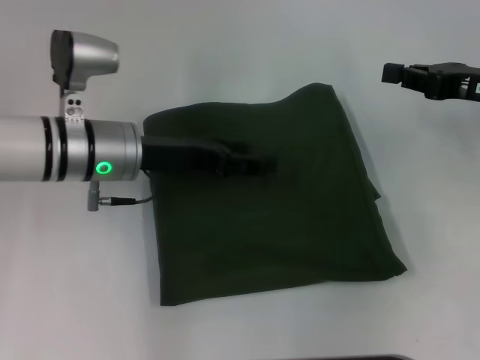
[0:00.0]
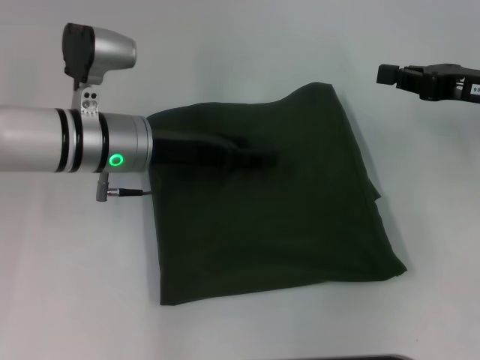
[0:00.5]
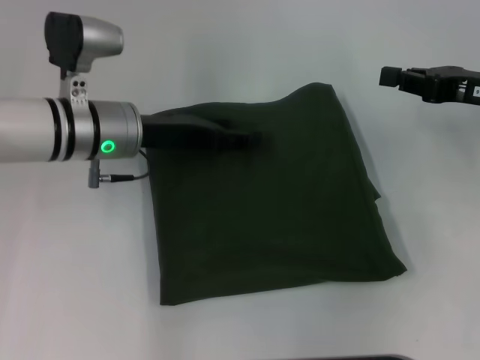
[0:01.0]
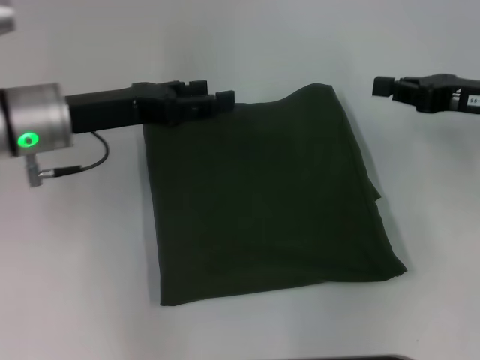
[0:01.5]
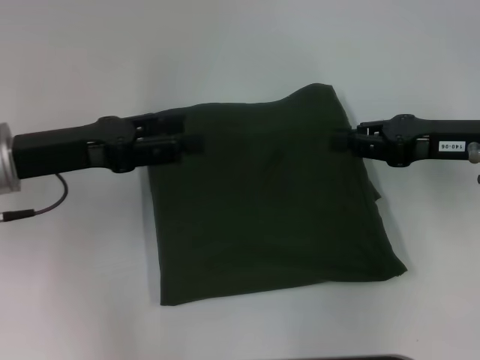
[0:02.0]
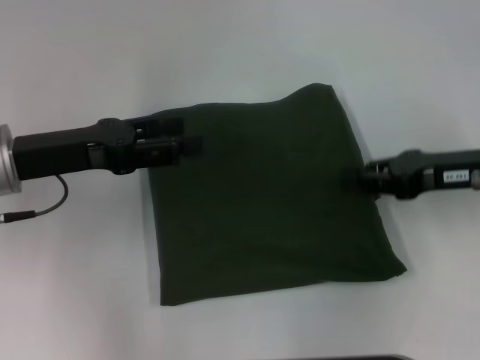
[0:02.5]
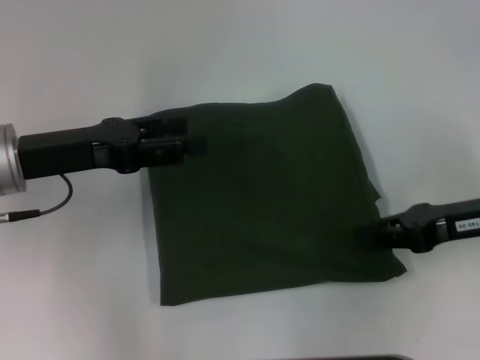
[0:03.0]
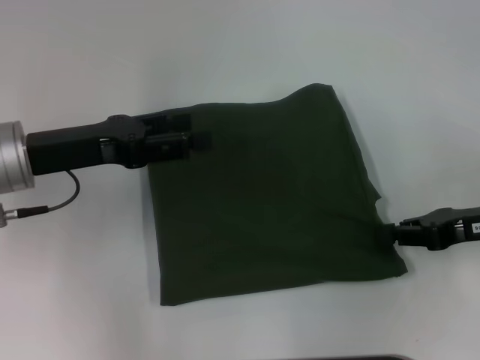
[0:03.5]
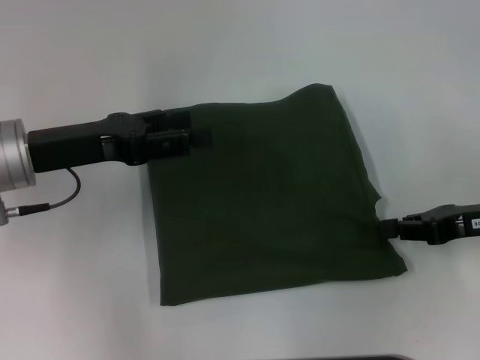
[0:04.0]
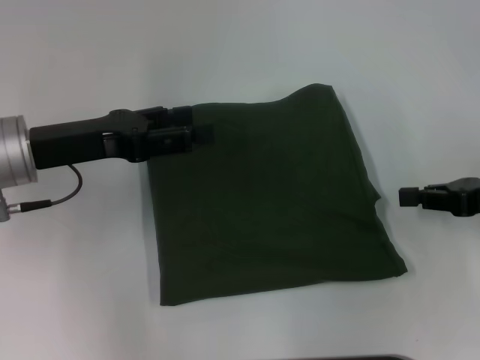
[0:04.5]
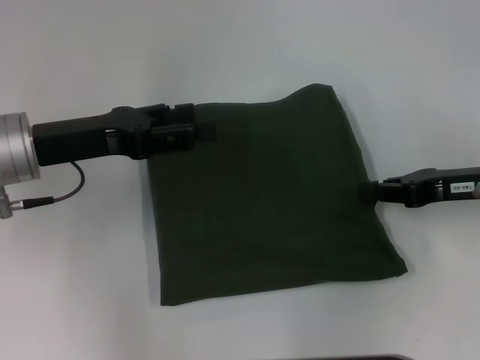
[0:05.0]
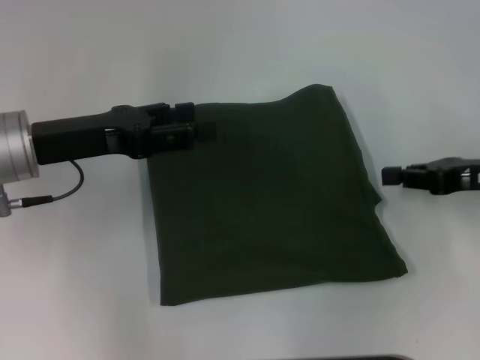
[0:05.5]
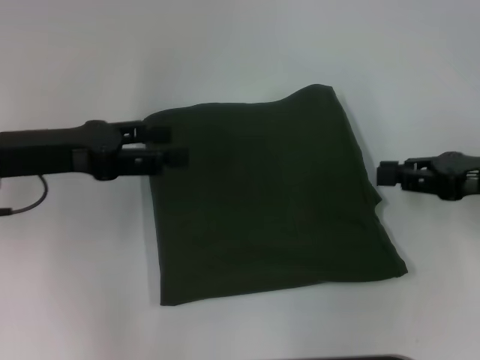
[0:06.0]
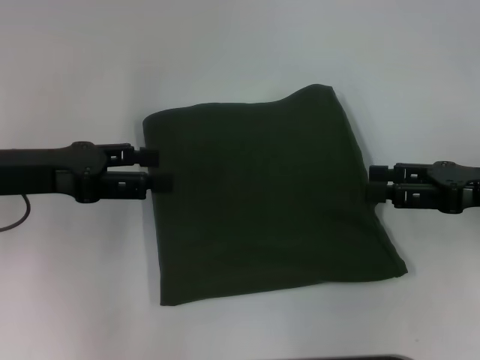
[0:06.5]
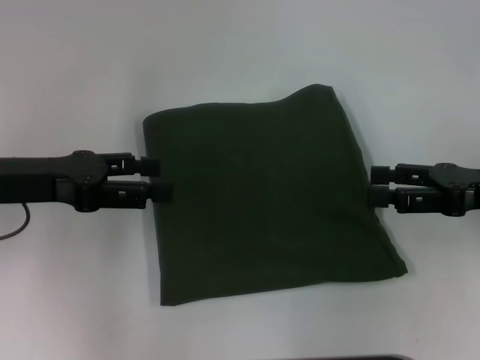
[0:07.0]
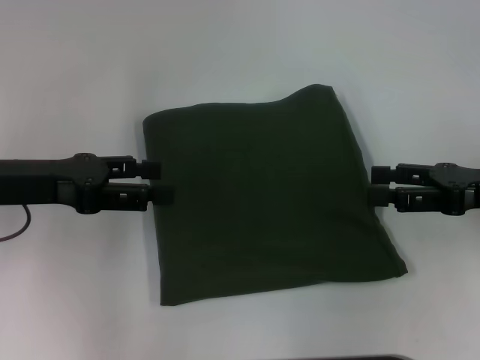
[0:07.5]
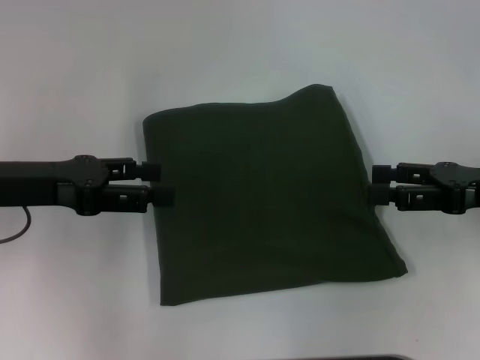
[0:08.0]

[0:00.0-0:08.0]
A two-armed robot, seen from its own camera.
0:00.0 to 0:02.0: The left gripper heads to the left, covering some 10 cm.
0:02.0 to 0:04.0: The right gripper ends up roughly 5 cm from where it was.
0:04.0 to 0:06.0: The grippers make only small movements.
0:06.0 to 0:08.0: The right gripper opens up.

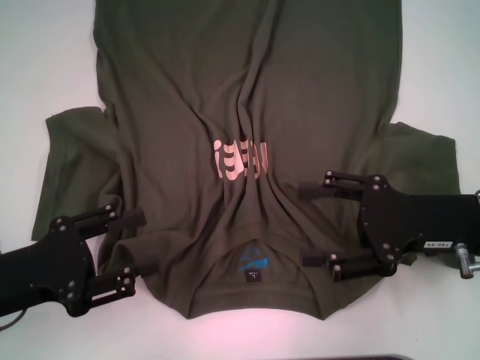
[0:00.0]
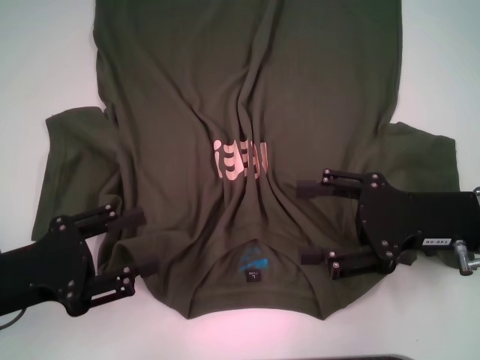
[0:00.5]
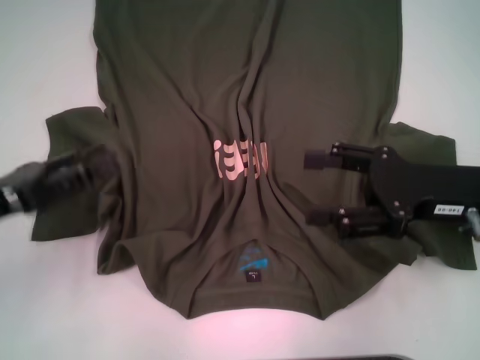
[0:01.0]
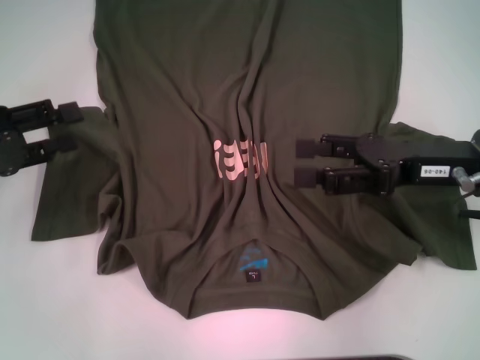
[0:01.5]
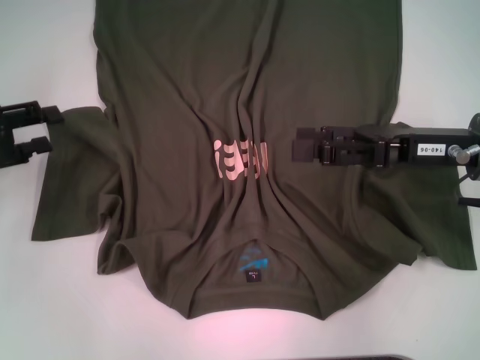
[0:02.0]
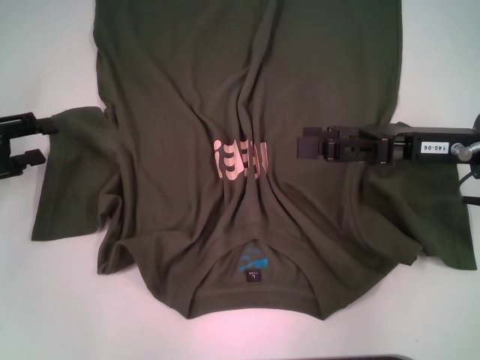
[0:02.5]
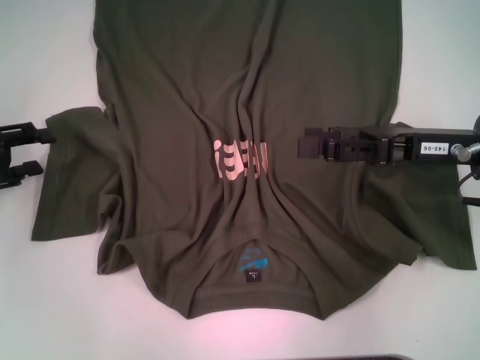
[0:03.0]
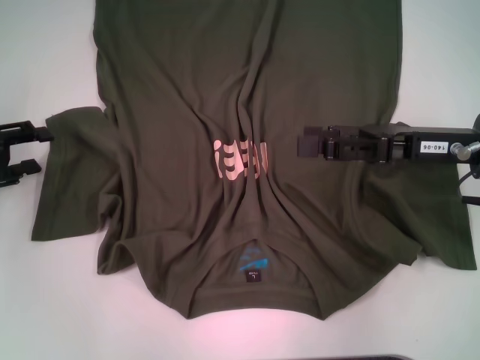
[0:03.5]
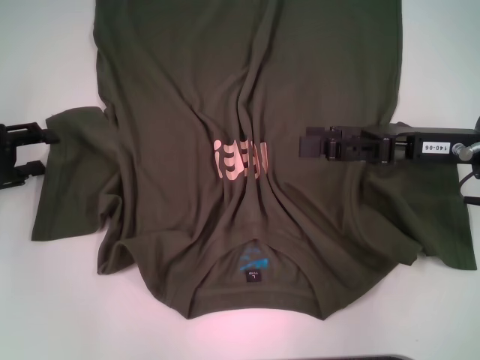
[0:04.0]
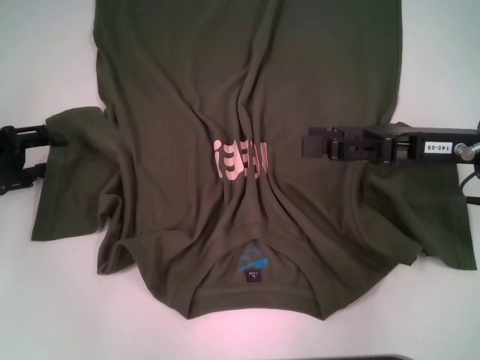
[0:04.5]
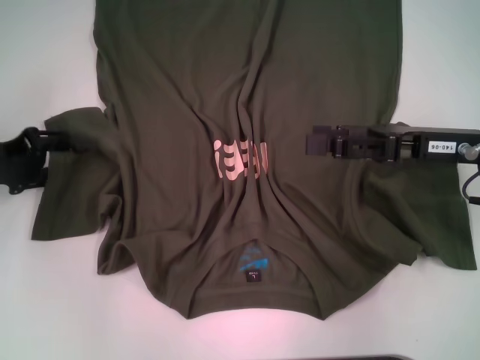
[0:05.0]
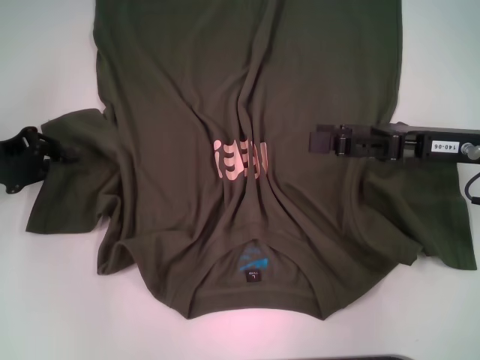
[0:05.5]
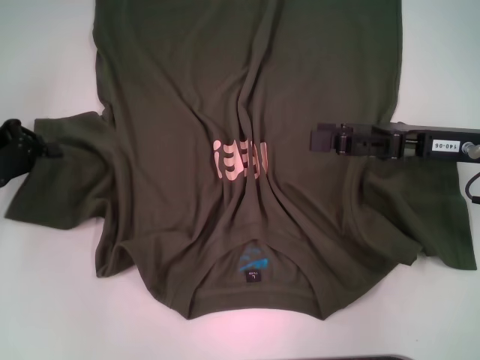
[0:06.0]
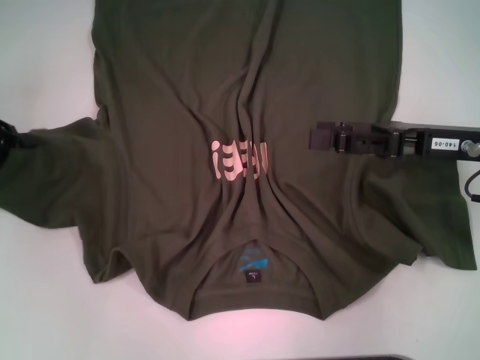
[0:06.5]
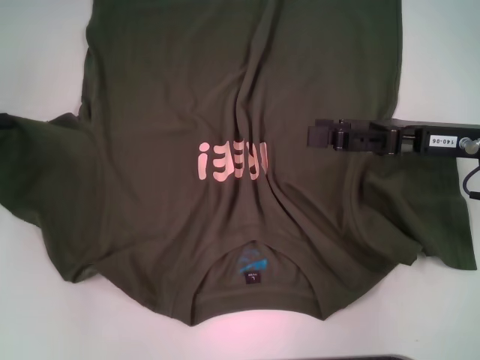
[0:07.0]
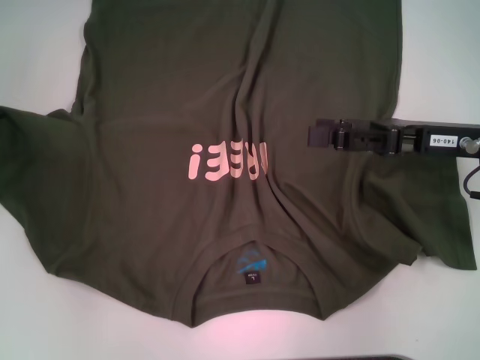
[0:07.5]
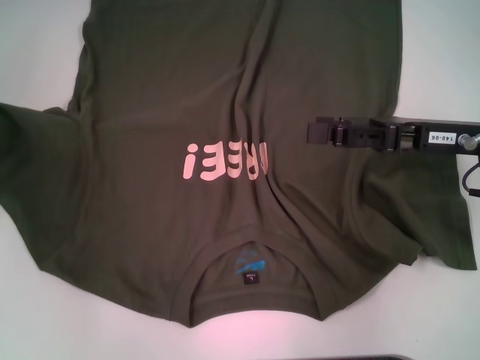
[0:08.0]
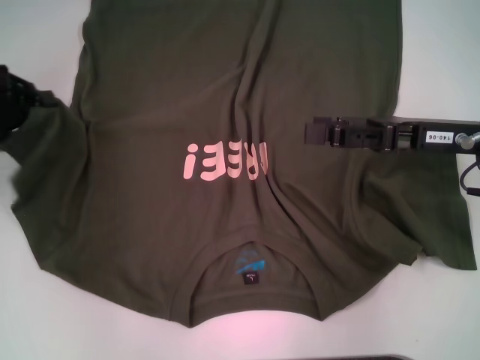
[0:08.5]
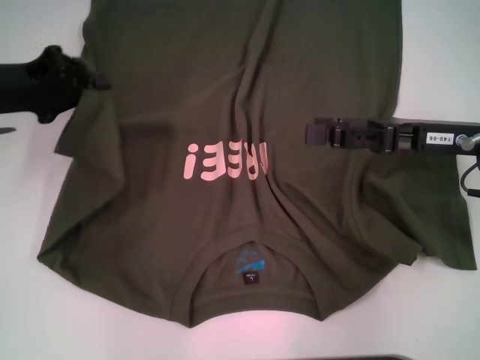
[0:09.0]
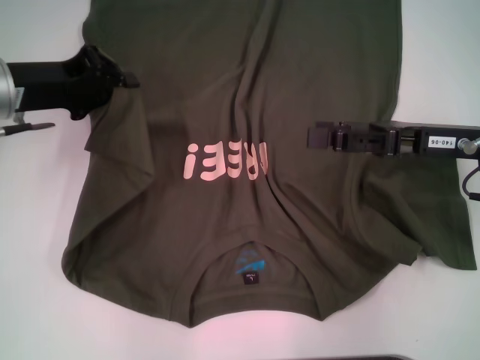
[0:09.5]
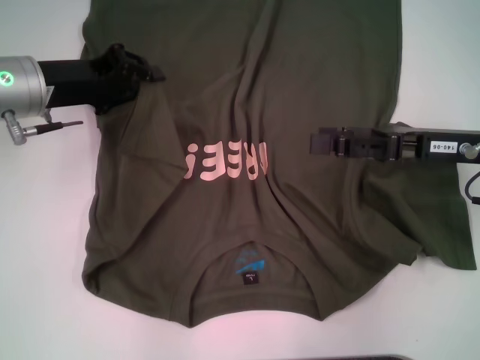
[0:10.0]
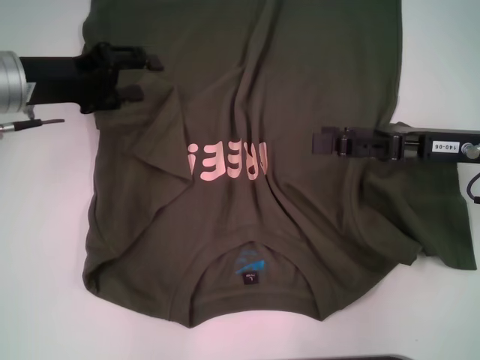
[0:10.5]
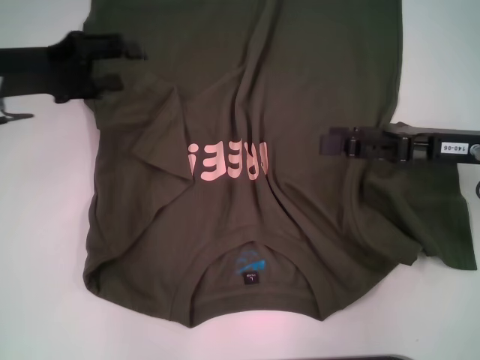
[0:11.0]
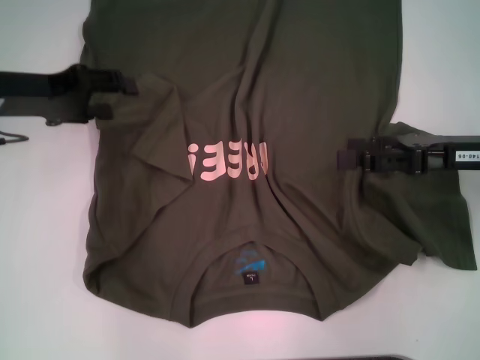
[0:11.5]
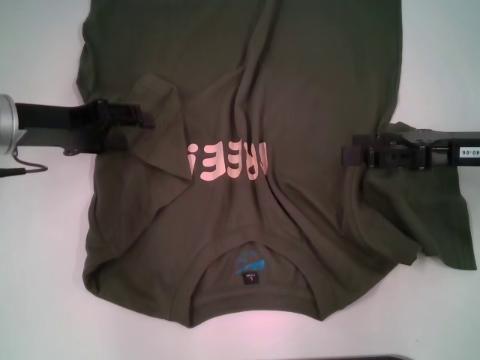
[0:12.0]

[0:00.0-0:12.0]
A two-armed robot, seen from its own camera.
0:00.0 to 0:02.0: The right gripper moves forward, approximately 5 cm. The left gripper shifts roughly 15 cm forward and to the left.
0:02.0 to 0:04.0: The grippers stay close to where they were, moving slightly.
0:04.0 to 0:06.0: The left gripper closes up.
0:06.0 to 0:08.0: The left gripper changes place by approximately 5 cm.
0:08.0 to 0:10.0: The left gripper heads to the right, covering approximately 15 cm.
0:10.0 to 0:12.0: The left gripper opens up.

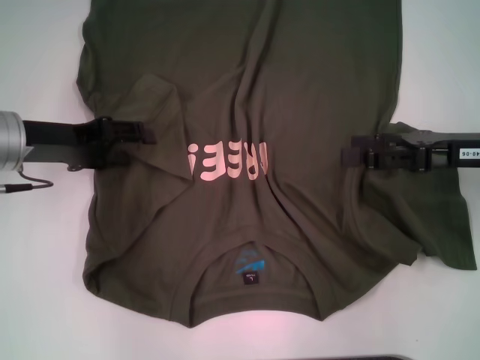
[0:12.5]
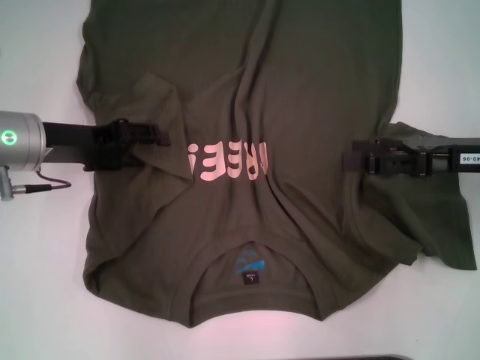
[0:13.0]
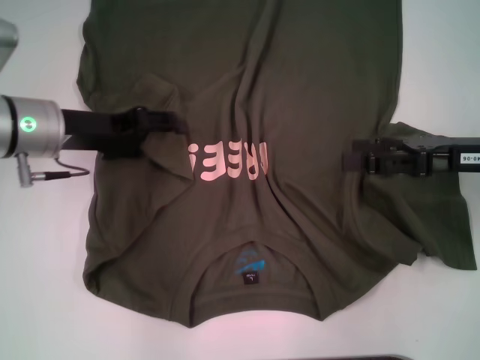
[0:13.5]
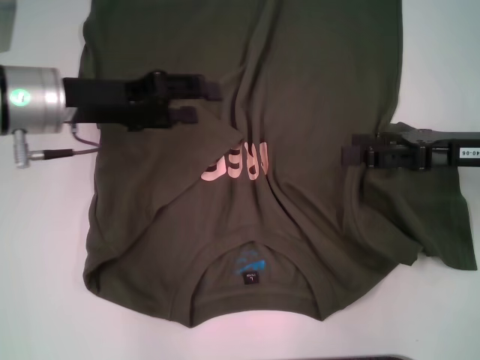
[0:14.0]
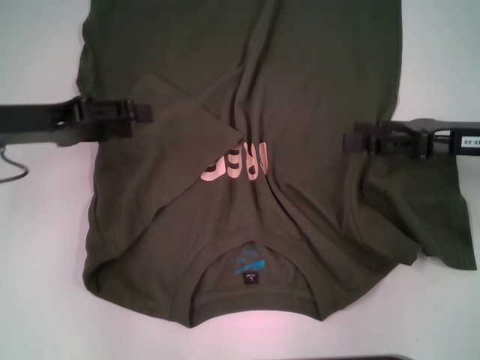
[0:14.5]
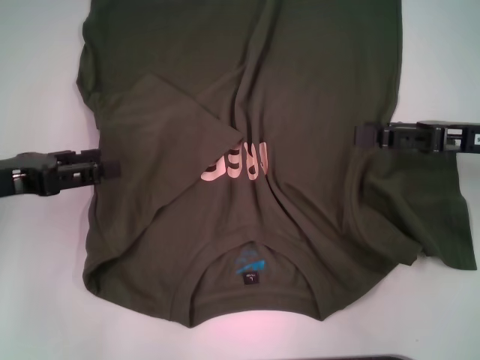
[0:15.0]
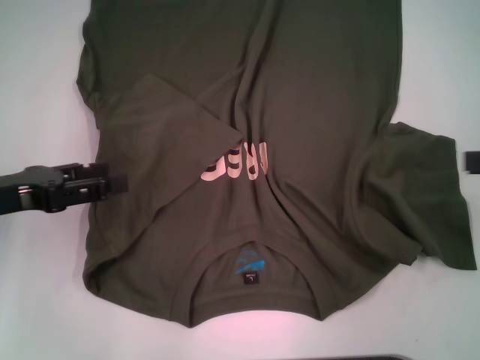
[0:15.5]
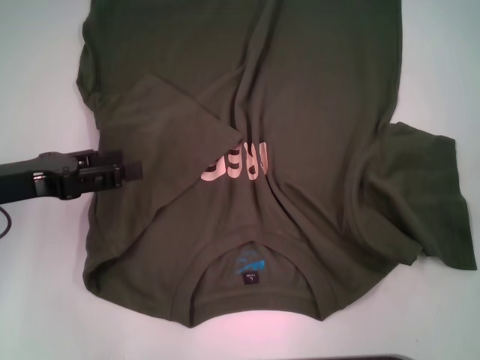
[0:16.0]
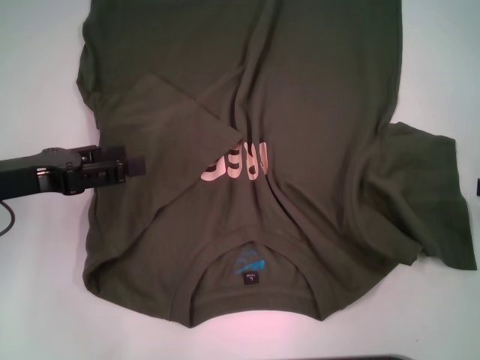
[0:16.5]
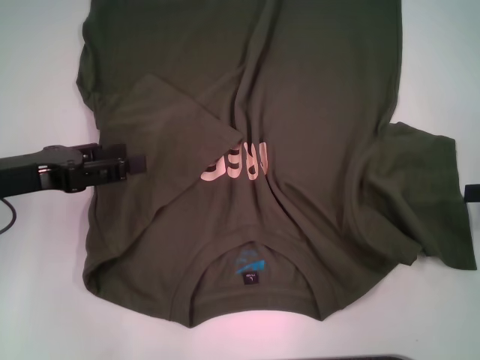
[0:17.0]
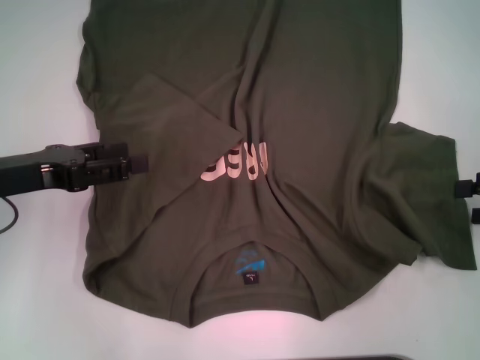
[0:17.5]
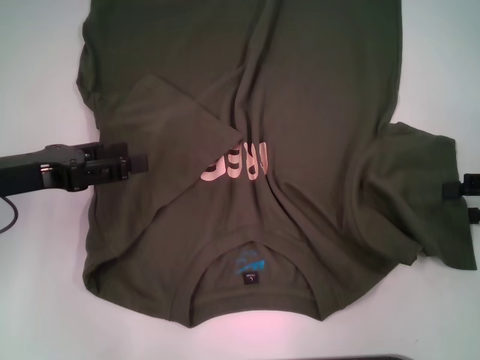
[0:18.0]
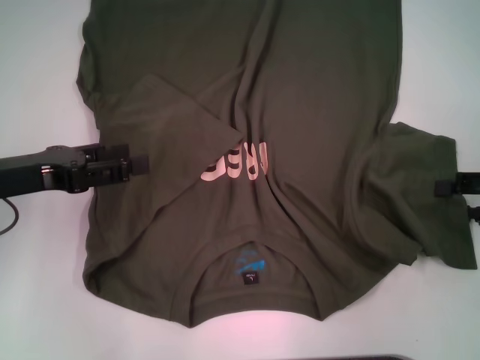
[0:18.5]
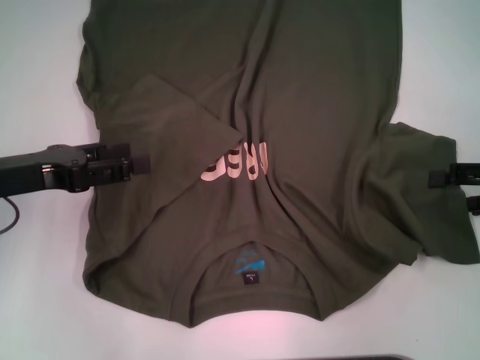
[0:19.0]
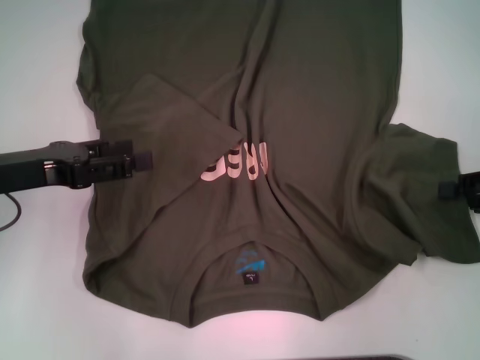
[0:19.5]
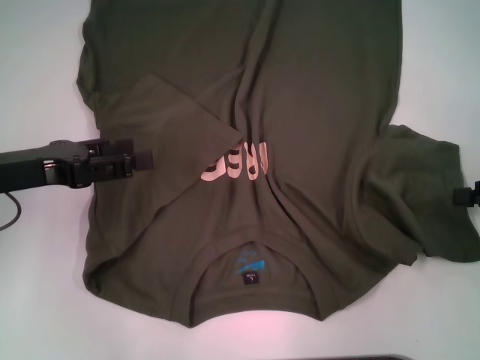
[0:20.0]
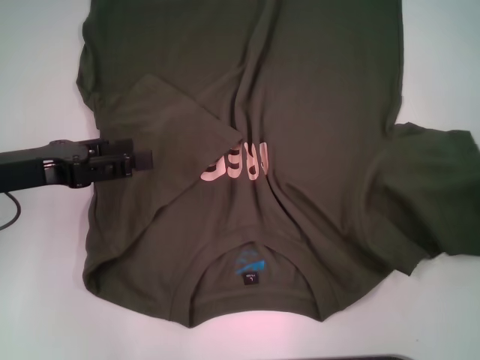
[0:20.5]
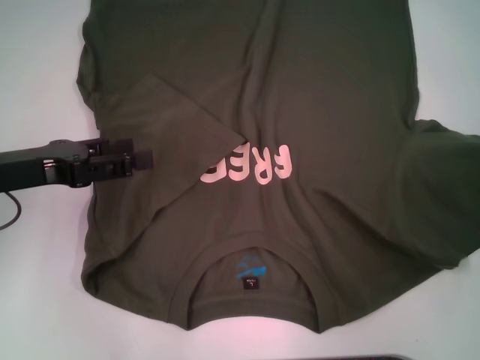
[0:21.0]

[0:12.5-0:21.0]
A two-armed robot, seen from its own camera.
0:14.5 to 0:16.5: The right gripper heads to the right and backward, covering about 15 cm. Meanwhile the left gripper shifts about 5 cm backward.
0:16.5 to 0:19.0: The grippers move only a little.
0:19.0 to 0:21.0: The right gripper heads to the right, covering roughly 5 cm, and closes up.
